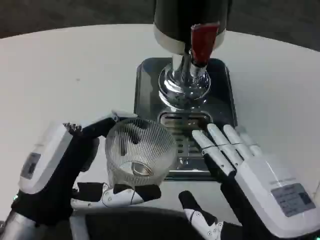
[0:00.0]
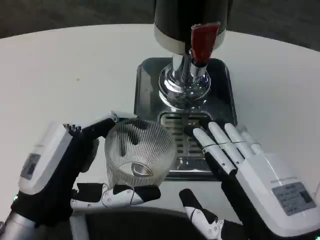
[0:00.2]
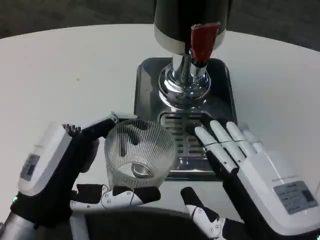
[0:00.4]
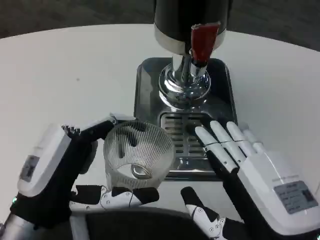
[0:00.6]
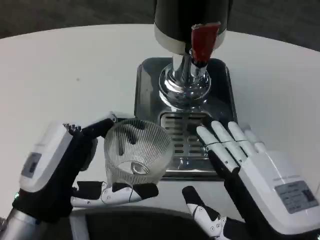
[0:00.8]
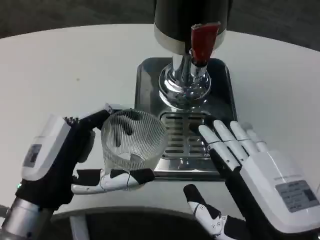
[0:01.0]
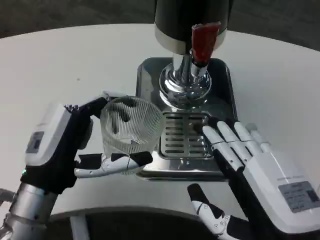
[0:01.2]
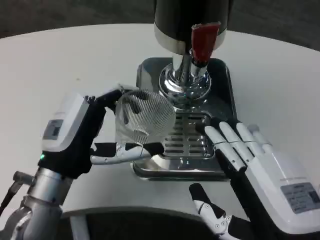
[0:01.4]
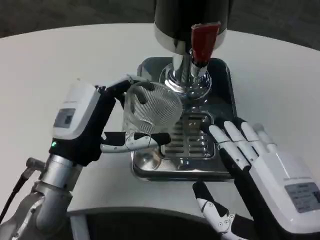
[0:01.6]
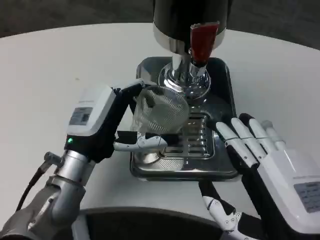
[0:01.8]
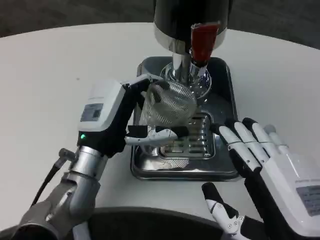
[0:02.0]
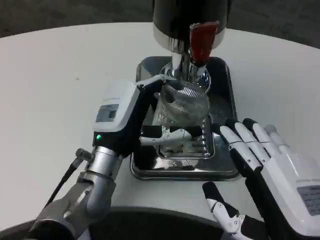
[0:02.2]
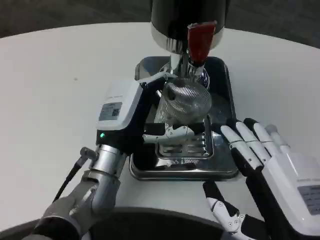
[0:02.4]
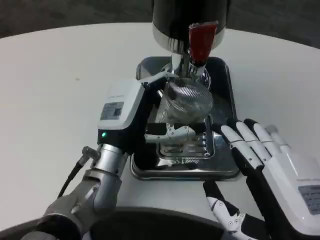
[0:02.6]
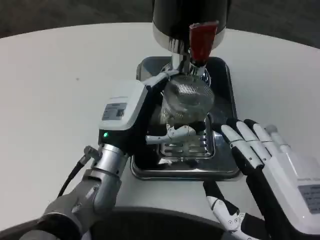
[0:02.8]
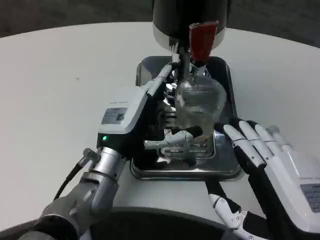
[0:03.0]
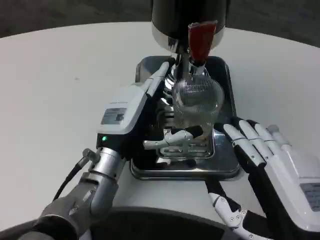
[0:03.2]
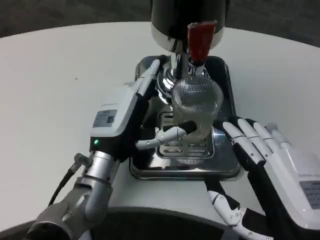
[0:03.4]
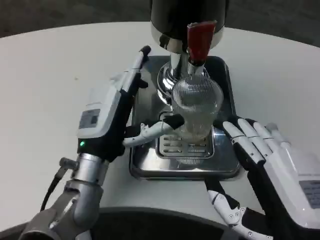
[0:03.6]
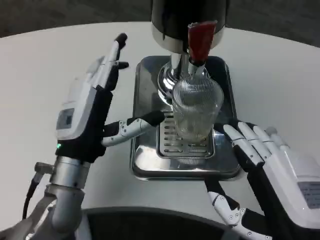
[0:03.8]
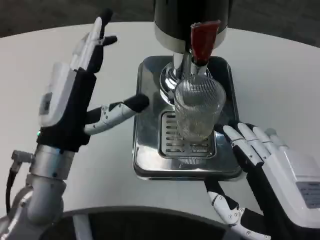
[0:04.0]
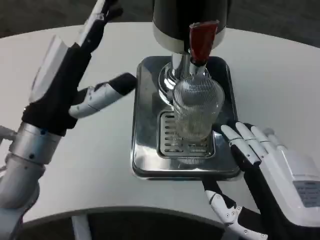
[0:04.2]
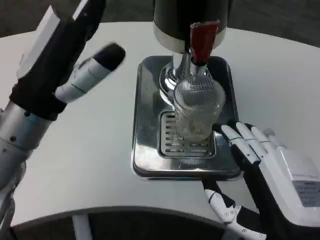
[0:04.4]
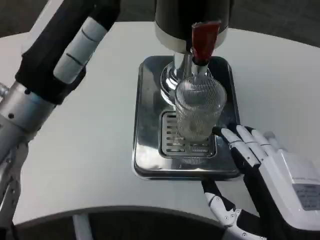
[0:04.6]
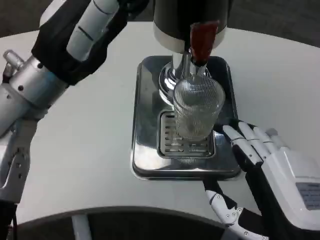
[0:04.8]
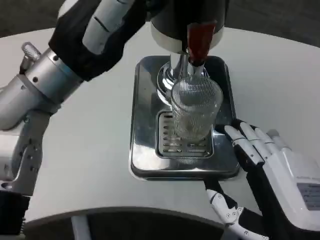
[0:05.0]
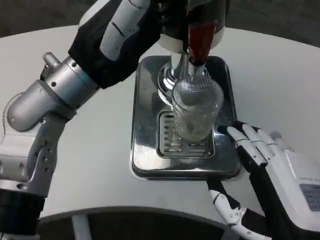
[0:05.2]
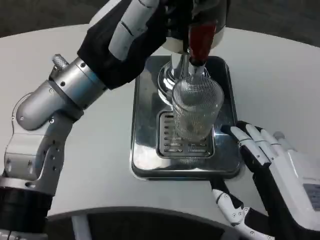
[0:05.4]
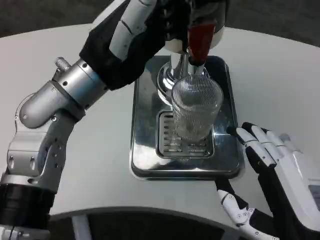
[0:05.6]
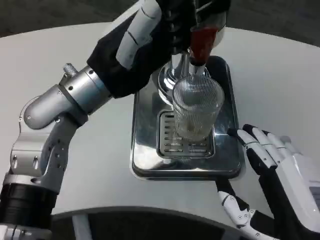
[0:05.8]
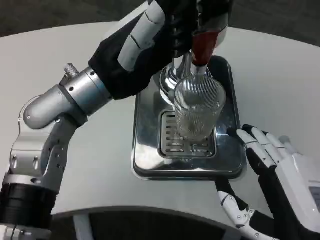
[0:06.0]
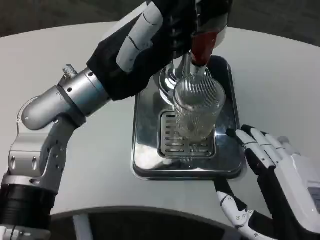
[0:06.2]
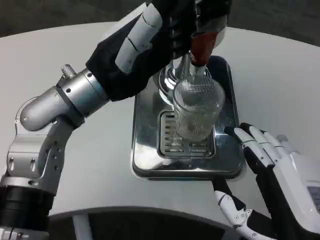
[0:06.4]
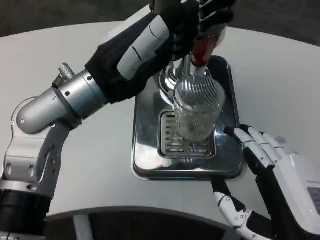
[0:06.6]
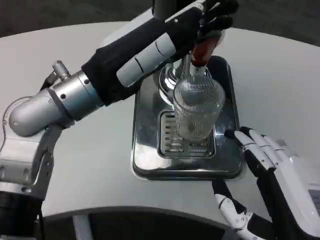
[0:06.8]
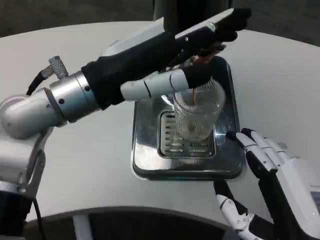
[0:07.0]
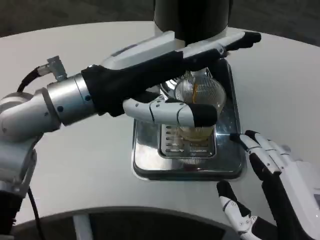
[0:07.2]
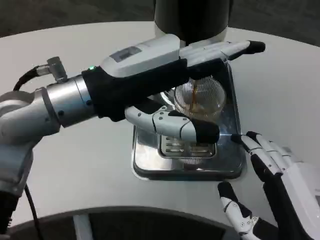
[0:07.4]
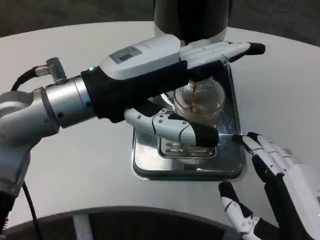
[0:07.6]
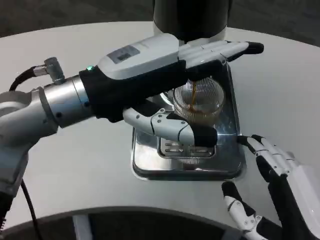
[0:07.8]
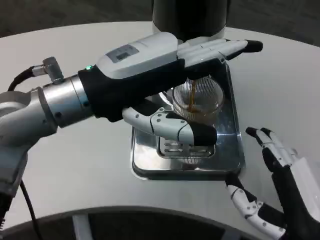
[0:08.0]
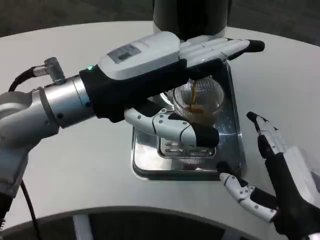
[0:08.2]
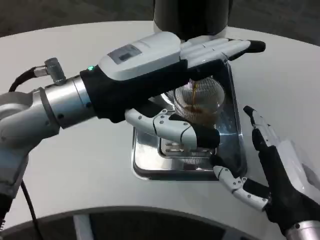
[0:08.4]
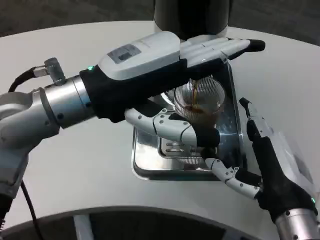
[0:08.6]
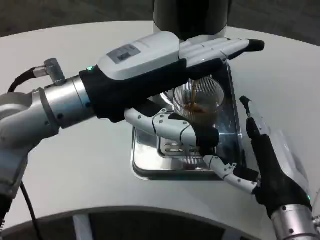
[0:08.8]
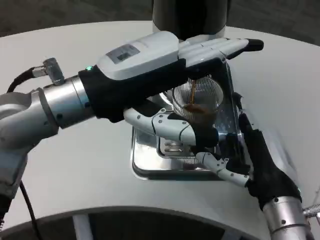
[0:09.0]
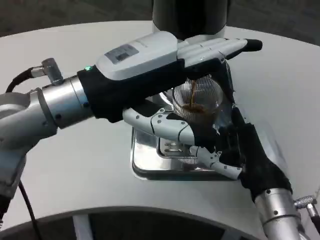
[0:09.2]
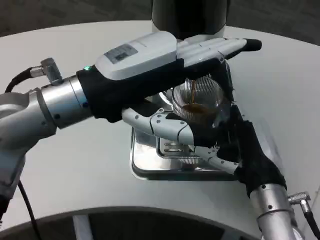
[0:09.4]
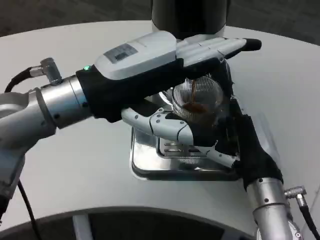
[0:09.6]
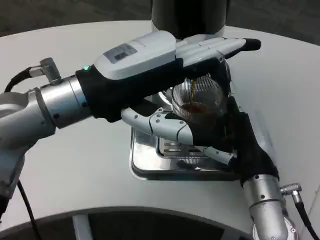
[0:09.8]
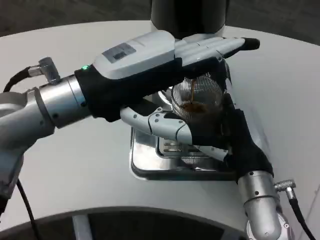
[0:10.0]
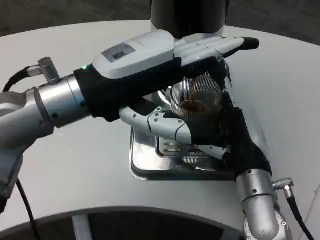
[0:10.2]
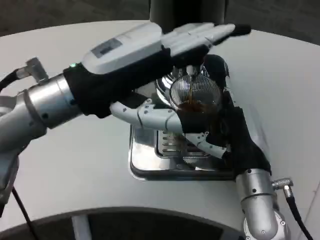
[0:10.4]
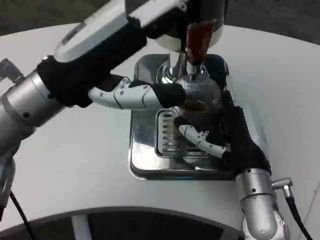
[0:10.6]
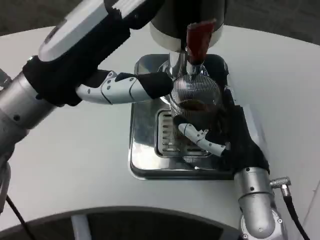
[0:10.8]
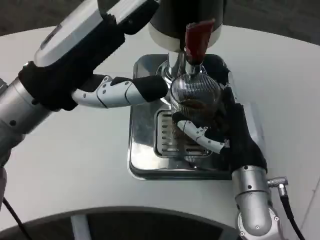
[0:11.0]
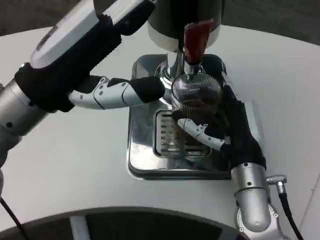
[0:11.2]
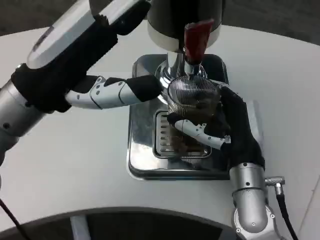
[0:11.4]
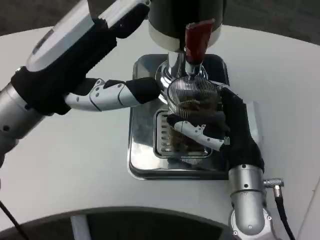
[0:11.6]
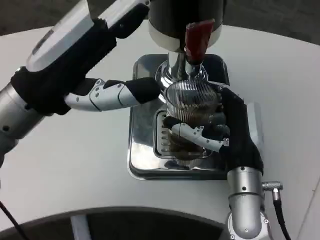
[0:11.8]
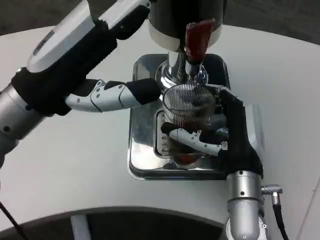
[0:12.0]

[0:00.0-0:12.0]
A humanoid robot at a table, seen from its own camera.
Task of the whole recording: Grasp the cup under the faucet to collect the drink, then remove the cup.
0:00.0 to 0:01.6: The left hand shifts approximately 10 cm forward.
0:01.6 to 0:03.0: The left hand moves to the right, about 5 cm.
0:03.0 to 0:04.4: The left hand is displaced upward, to the left and backward by approximately 15 cm.
0:04.4 to 0:06.0: The left hand is displaced forward by roughly 5 cm.
0:07.6 to 0:09.0: The right hand heads forward, covering about 10 cm.
0:09.0 to 0:10.4: The right hand ends up roughly 5 cm from where it was.

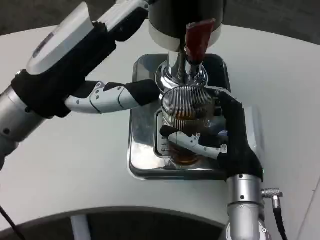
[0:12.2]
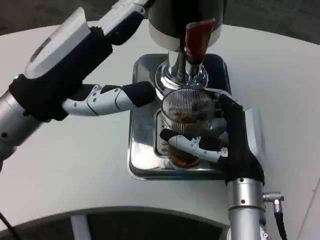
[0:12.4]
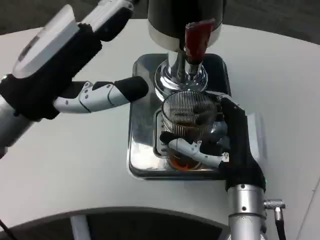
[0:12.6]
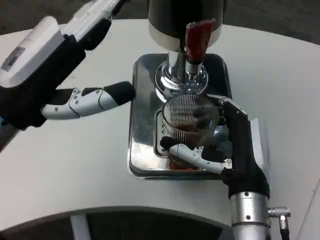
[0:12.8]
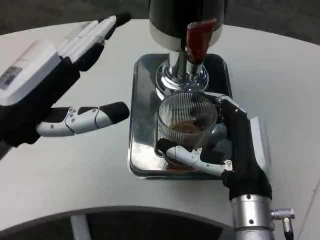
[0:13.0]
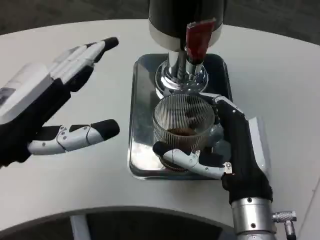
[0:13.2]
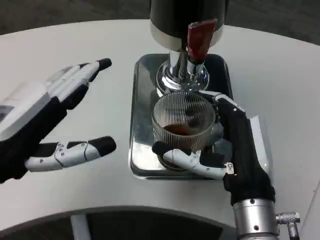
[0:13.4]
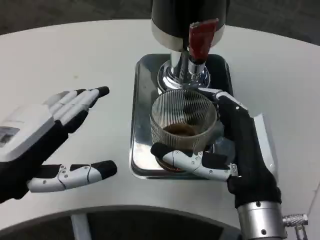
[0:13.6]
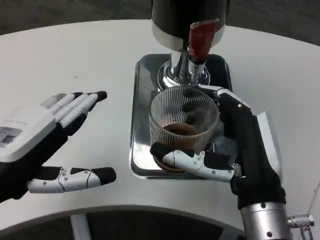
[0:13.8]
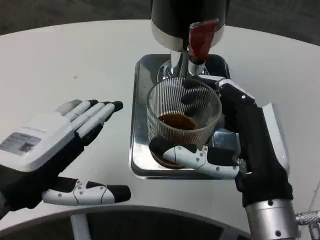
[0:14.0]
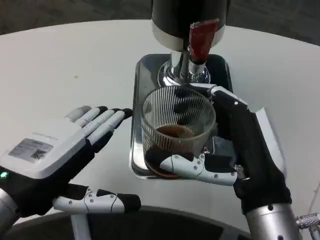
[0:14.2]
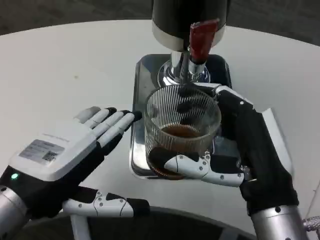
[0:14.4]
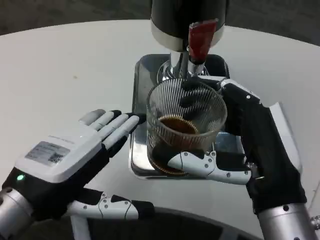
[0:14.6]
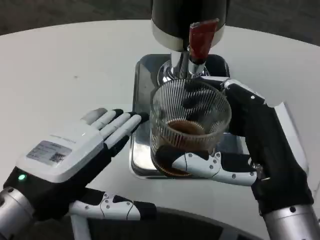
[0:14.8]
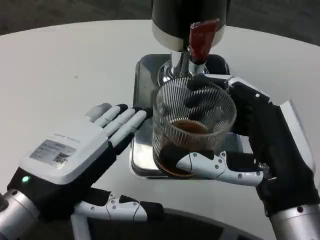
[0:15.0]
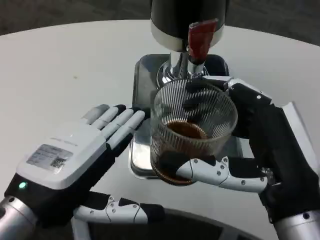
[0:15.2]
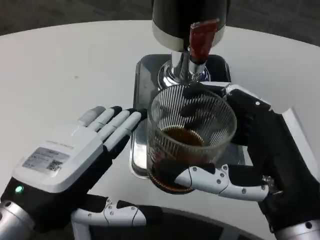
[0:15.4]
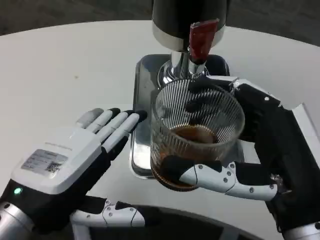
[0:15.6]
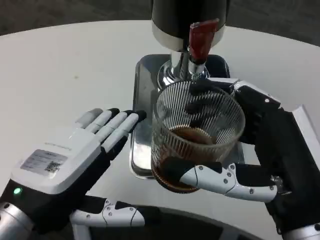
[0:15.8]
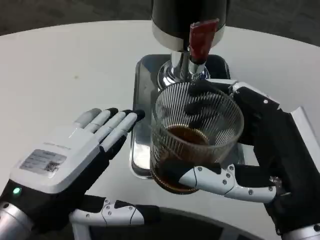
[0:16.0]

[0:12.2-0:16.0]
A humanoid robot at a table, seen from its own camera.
Task of the whole recording: Grasp the cup under the faucet to collect the drink, then remove the cup.
0:12.2 to 0:13.4: The right hand heads backward, covering approximately 5 cm; the left hand shifts some 10 cm backward and downward.
0:13.4 to 0:14.8: The left hand shifts by about 5 cm; the right hand changes place by approximately 5 cm.

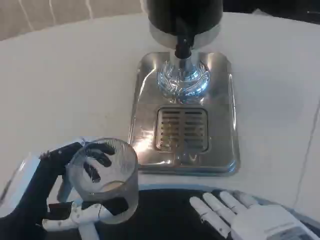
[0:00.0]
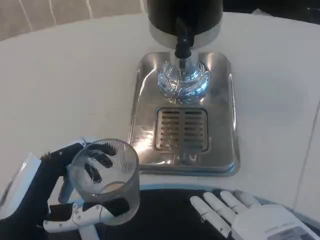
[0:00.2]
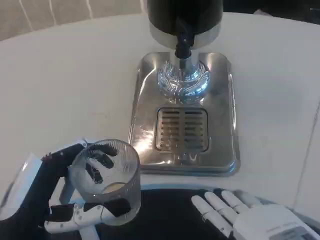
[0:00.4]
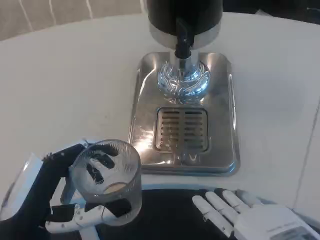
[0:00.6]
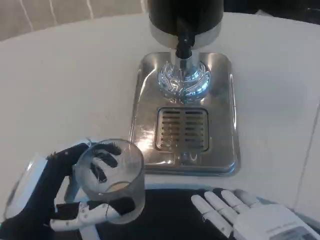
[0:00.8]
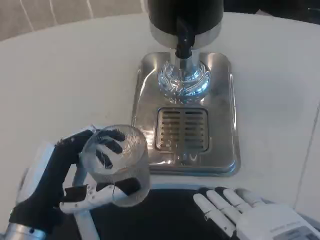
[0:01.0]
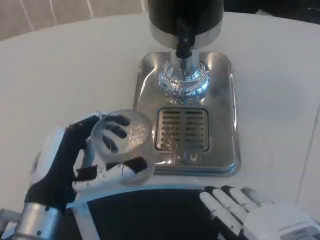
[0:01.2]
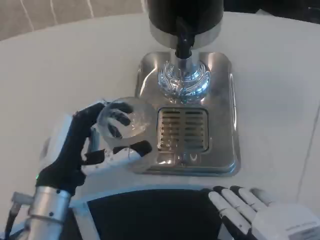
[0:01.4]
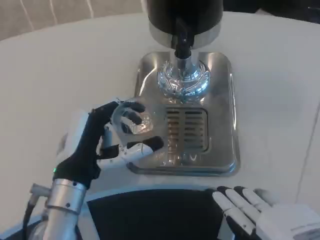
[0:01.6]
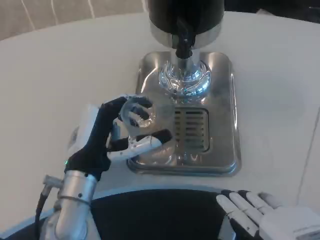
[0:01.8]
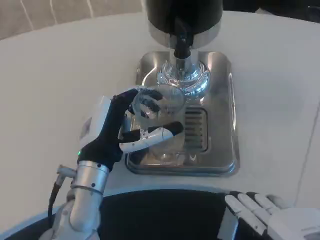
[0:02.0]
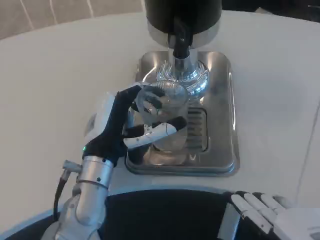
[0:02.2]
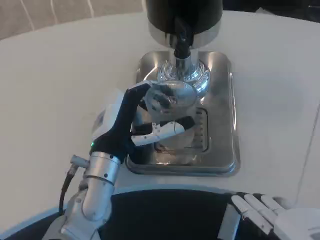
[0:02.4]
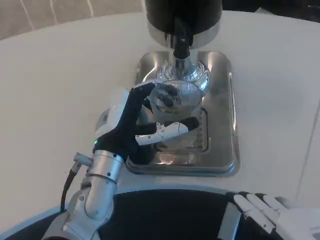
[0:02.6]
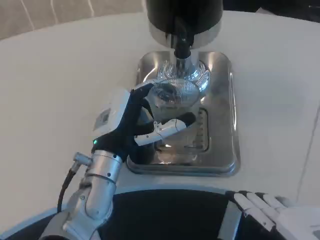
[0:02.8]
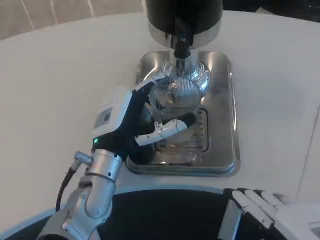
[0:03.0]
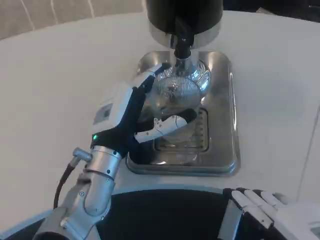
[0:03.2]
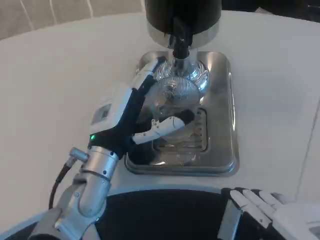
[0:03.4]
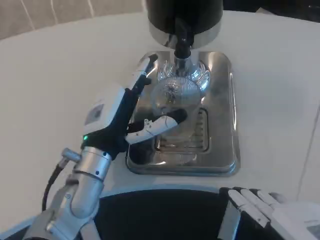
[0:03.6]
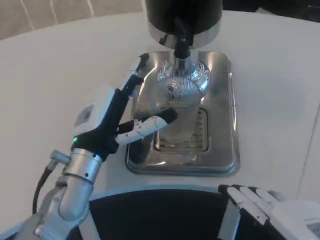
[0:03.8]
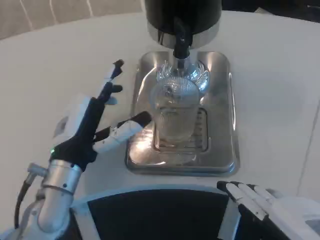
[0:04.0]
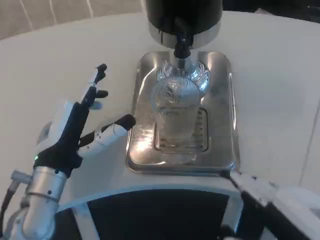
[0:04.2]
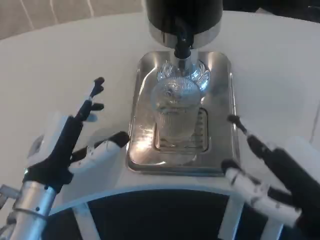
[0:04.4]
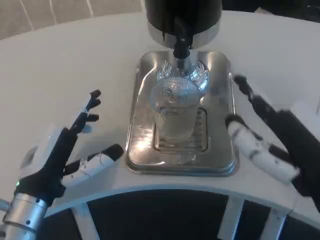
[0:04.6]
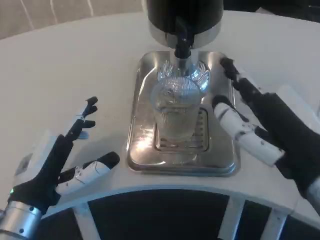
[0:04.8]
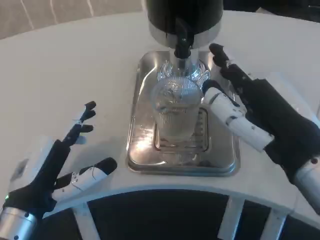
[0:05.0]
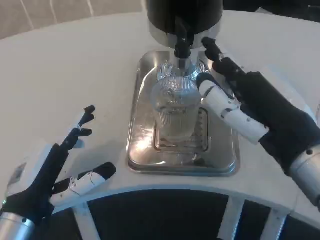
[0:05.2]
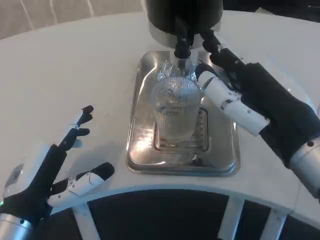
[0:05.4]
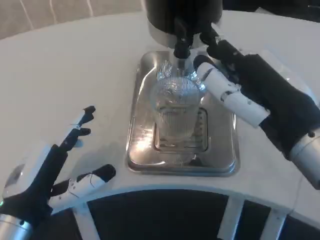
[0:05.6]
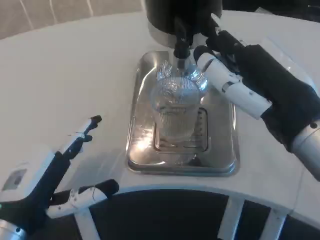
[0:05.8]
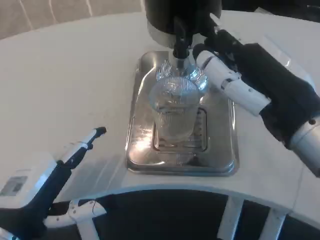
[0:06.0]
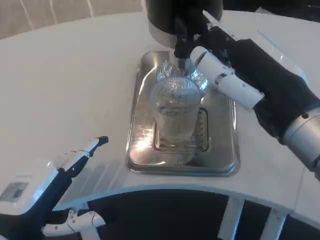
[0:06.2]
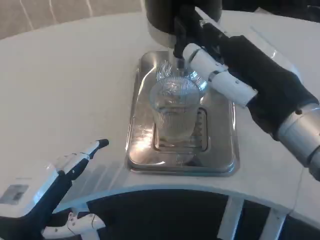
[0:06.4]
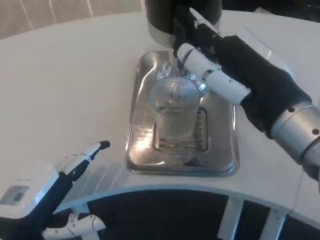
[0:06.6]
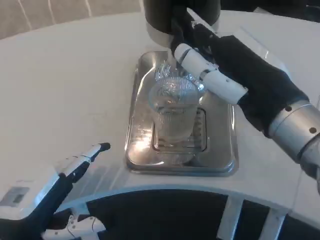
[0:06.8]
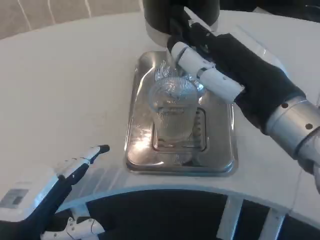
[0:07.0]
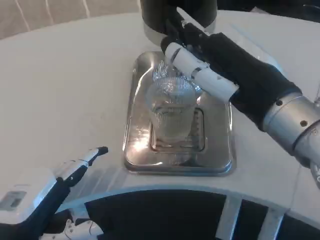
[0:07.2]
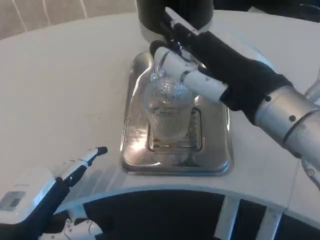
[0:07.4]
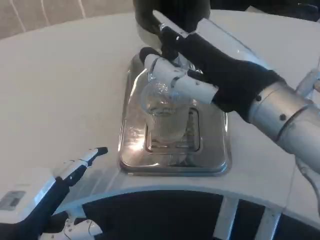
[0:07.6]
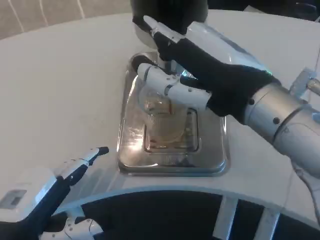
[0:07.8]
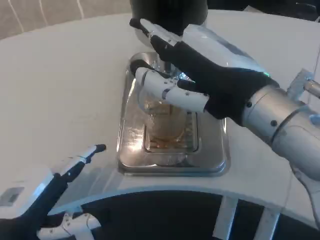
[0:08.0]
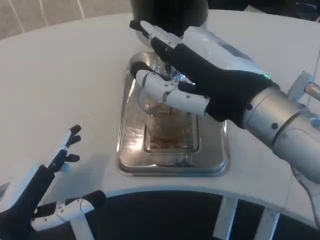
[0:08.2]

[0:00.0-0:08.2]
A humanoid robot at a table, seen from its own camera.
Task of the whole recording: Grasp the cup under the faucet to collect the drink, then remove the cup.
0:00.0 to 0:01.6: The left hand travels forward and to the right by some 10 cm.
0:01.6 to 0:03.2: The left hand moves about 5 cm.
0:03.2 to 0:05.0: The right hand goes approximately 10 cm forward and upward; the left hand travels to the left and backward by roughly 15 cm.
